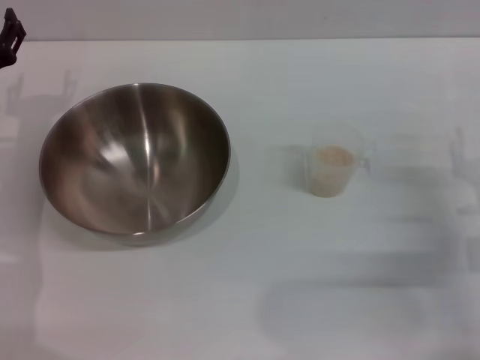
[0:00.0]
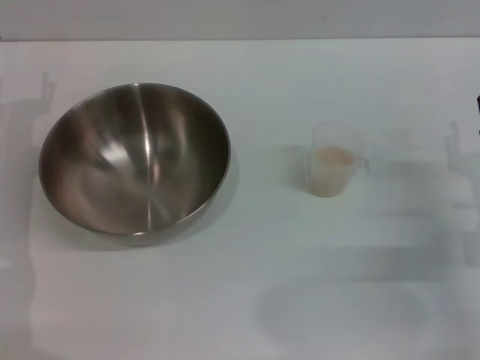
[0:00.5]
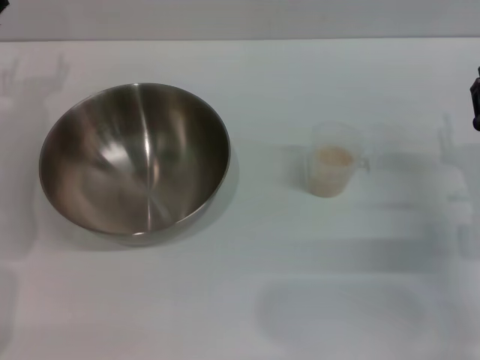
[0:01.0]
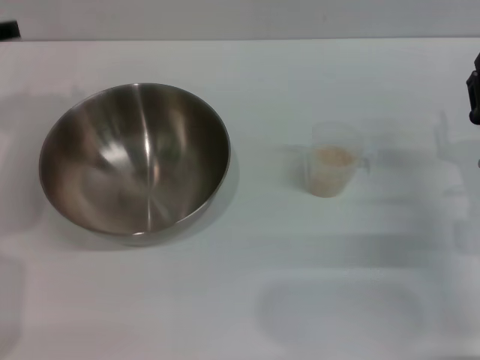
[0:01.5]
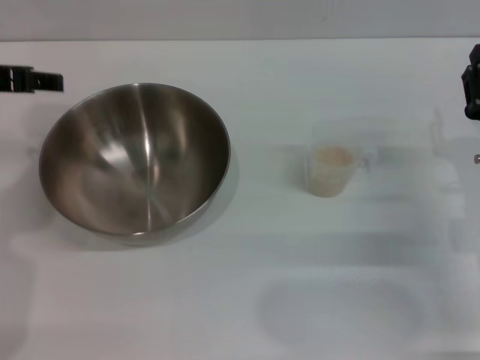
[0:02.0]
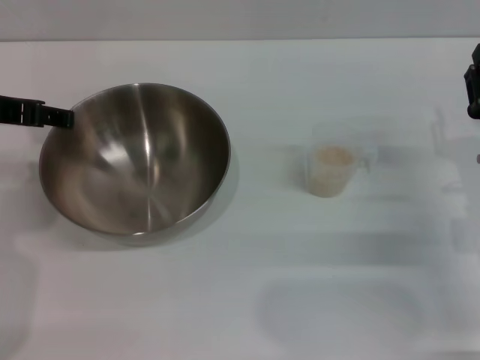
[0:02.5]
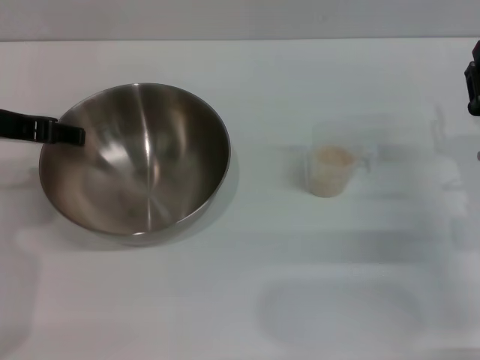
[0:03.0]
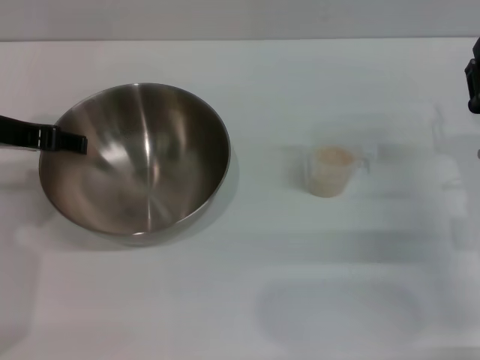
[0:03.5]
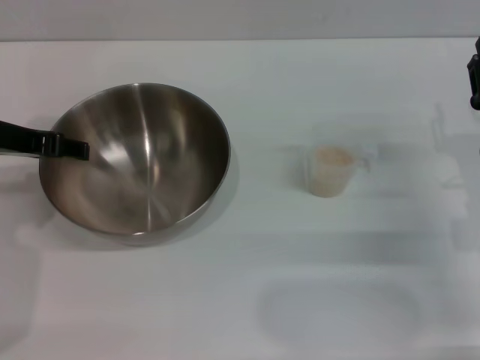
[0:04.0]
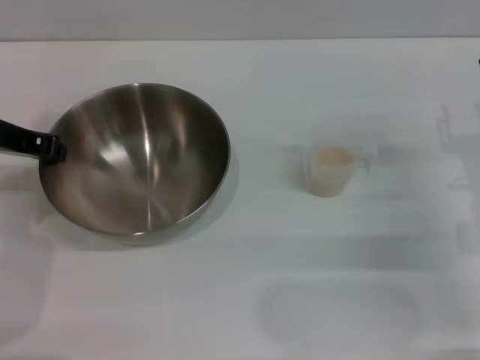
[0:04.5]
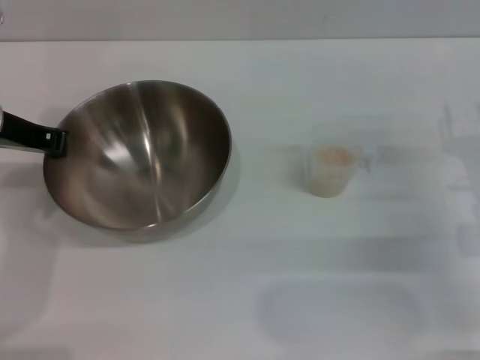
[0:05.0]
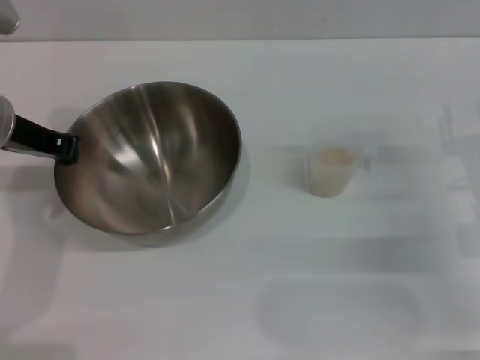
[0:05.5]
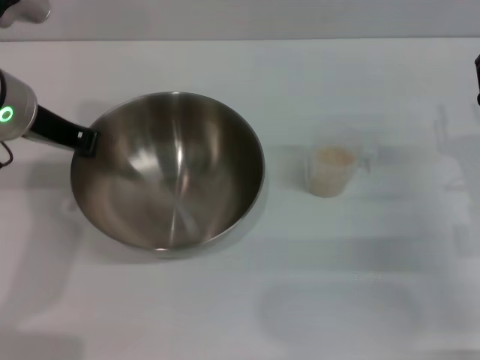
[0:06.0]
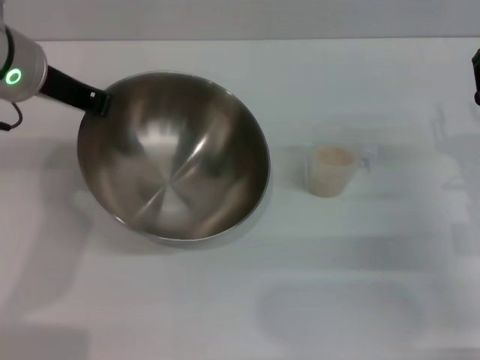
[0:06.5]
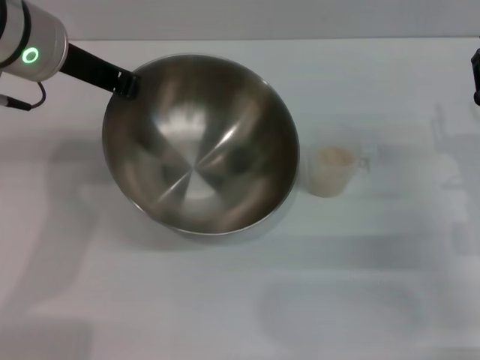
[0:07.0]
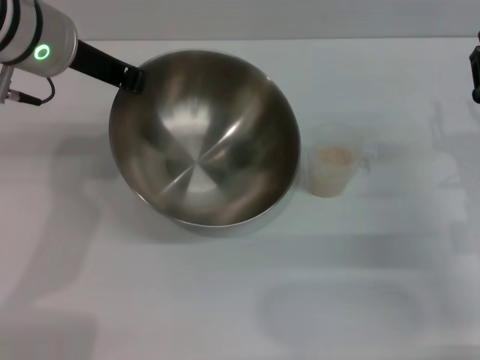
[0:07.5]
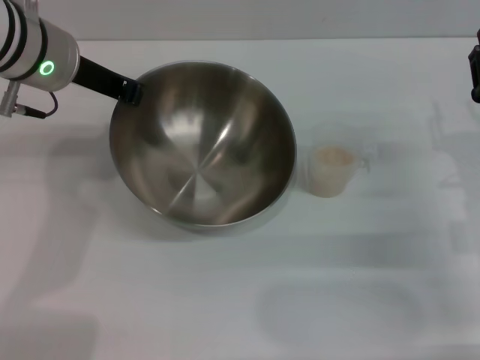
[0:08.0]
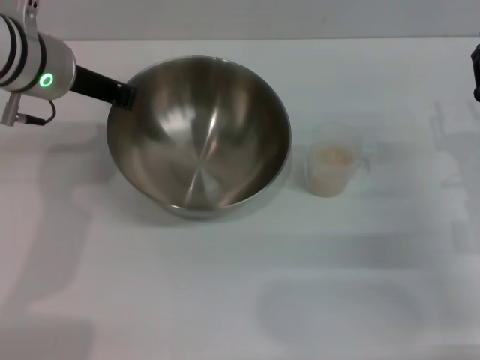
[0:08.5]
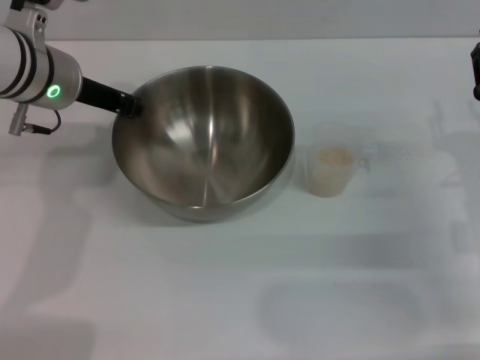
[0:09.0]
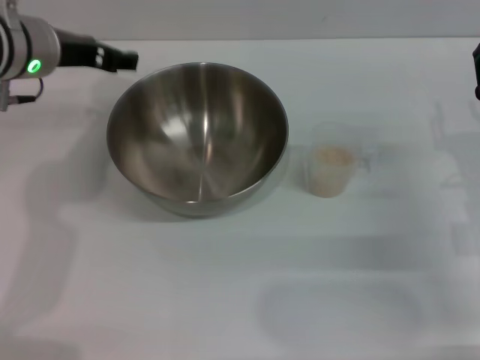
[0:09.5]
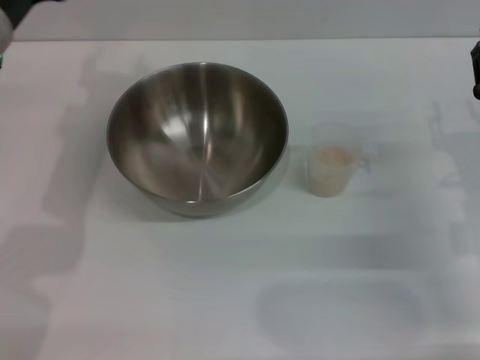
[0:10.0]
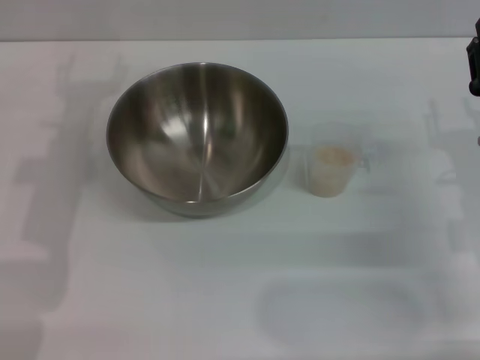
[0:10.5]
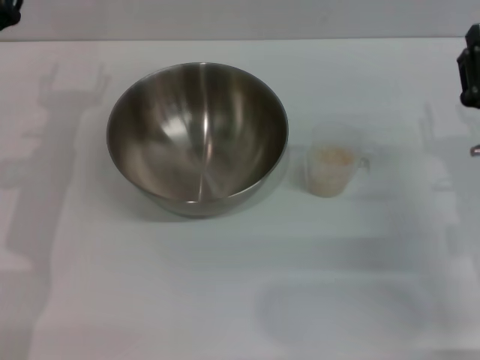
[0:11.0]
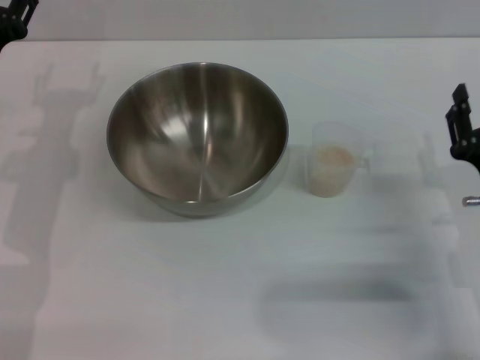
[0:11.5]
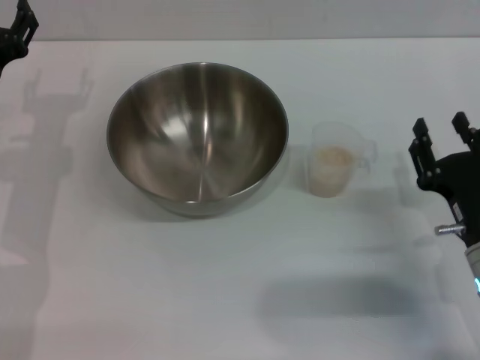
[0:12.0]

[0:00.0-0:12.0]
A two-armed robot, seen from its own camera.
Task of the whole recording: Place the bowl in the middle of the table with one hand and pour the rice from the grain cup into it with the other hand.
Step, 0:00.0 to 0:06.0: Pick up the bowl with the left gripper.
Step, 0:06.5 to 0:09.5: Place the bowl in the center of view with the left gripper.
0:00.0 to 0:02.0: The left gripper shifts roughly 15 cm upward.
0:02.0 to 0:04.0: The grippers make only small movements.
0:04.0 to 0:06.0: The left gripper shifts by roughly 5 cm, and closes up.
0:08.0 to 0:10.0: The left gripper changes place by approximately 5 cm, and opens.
0:10.0 to 0:12.0: The left gripper heads downward, covering approximately 10 cm. The right gripper moves backward, roughly 5 cm.

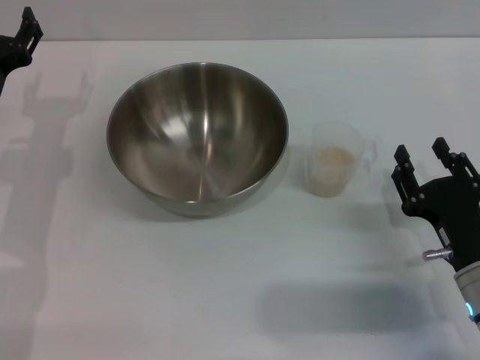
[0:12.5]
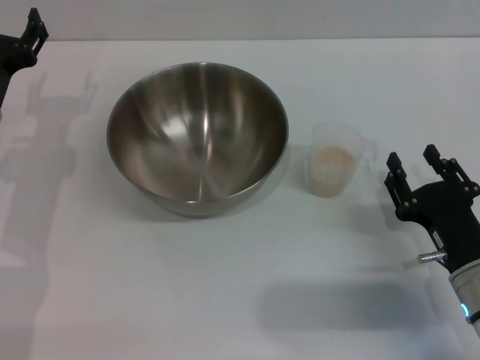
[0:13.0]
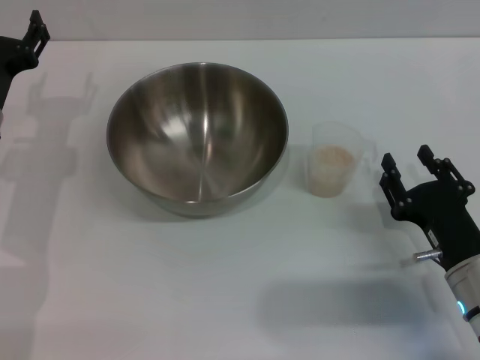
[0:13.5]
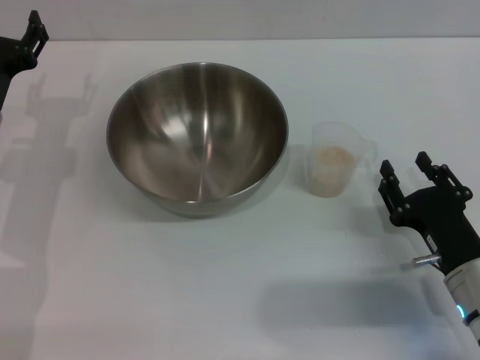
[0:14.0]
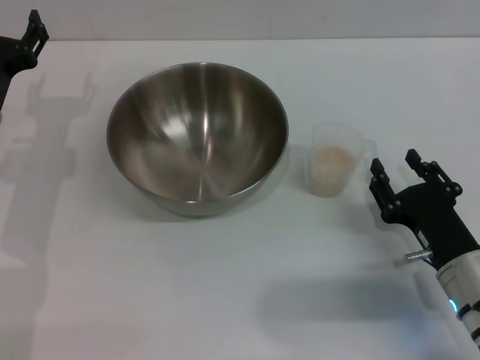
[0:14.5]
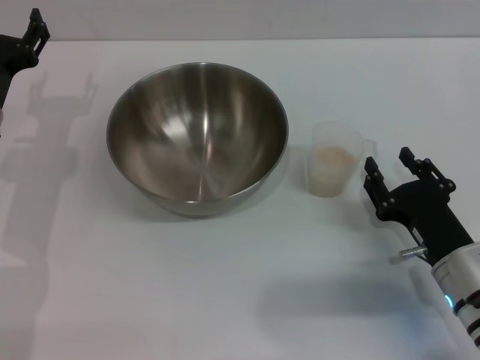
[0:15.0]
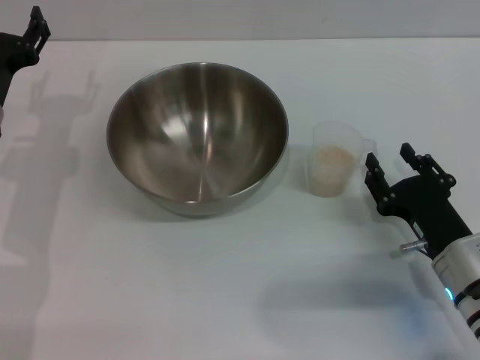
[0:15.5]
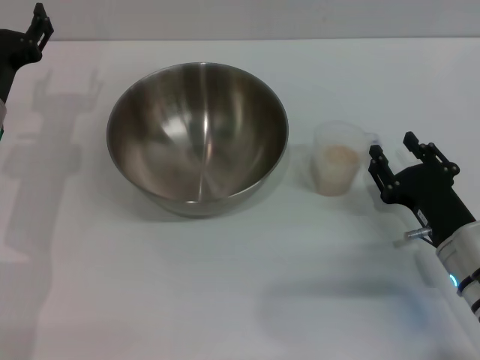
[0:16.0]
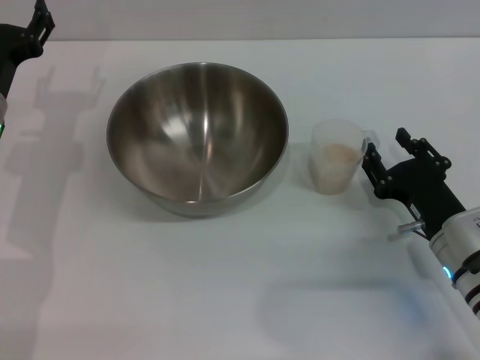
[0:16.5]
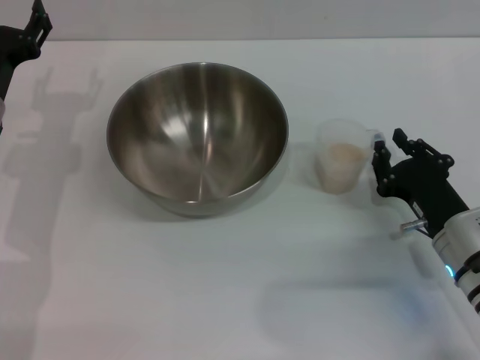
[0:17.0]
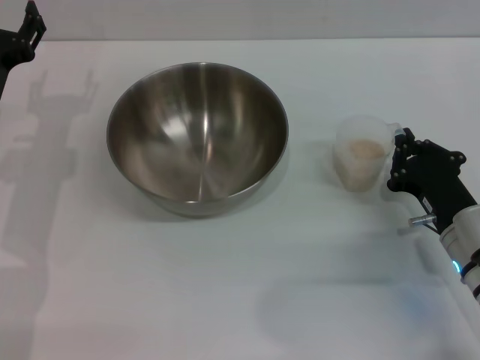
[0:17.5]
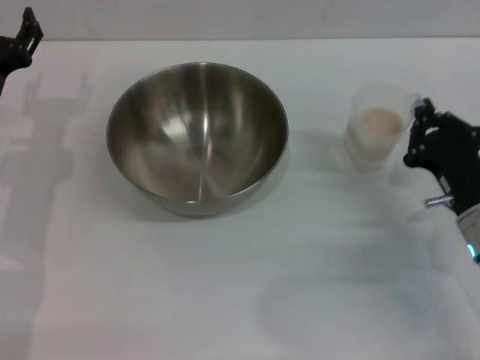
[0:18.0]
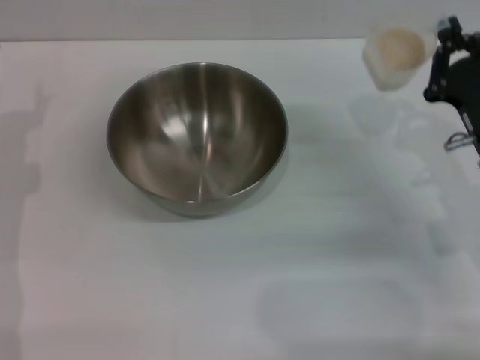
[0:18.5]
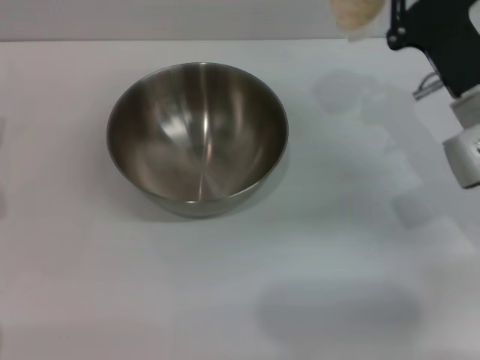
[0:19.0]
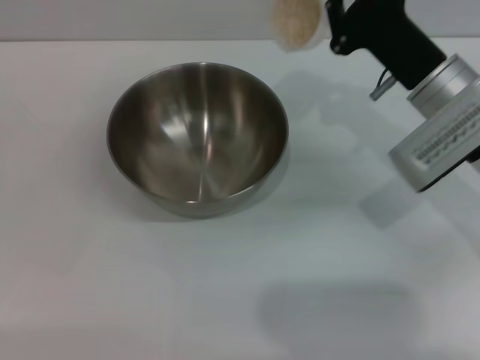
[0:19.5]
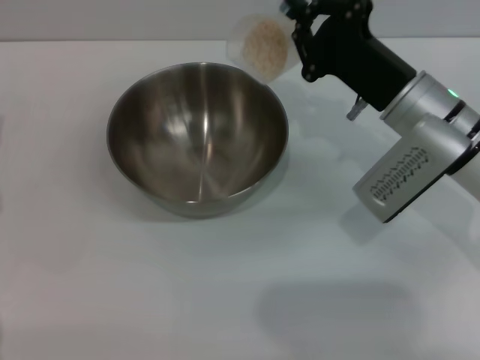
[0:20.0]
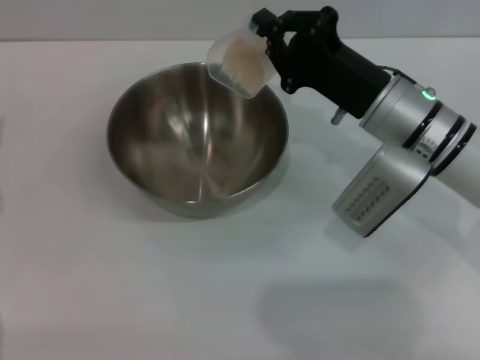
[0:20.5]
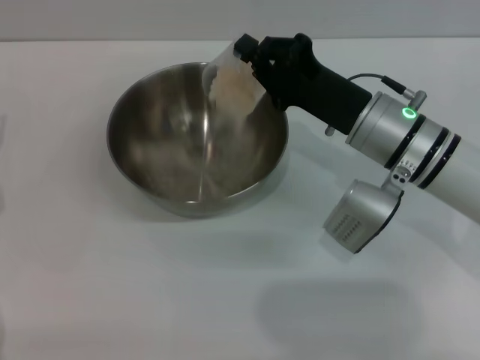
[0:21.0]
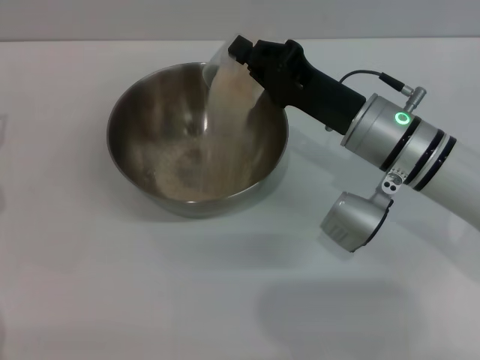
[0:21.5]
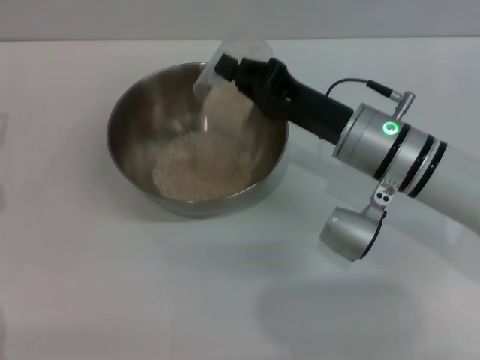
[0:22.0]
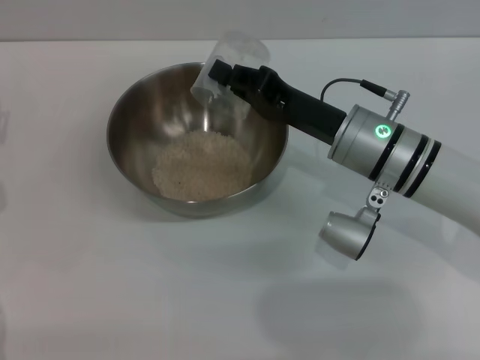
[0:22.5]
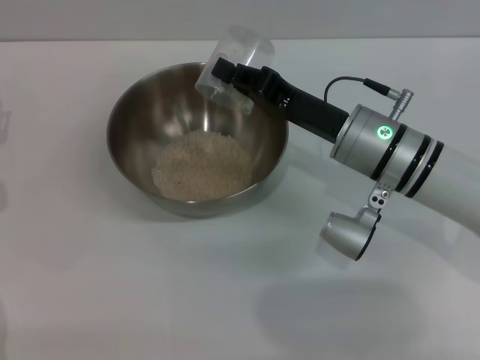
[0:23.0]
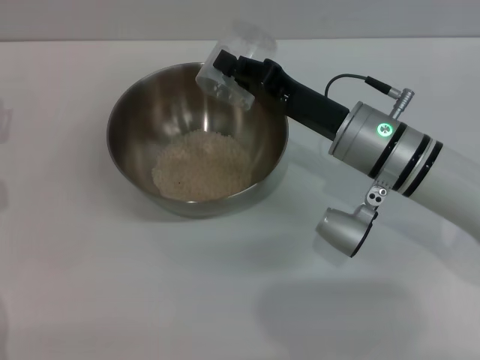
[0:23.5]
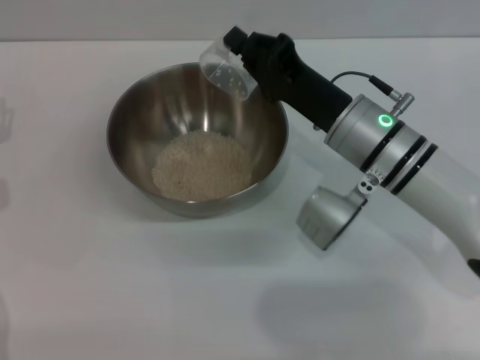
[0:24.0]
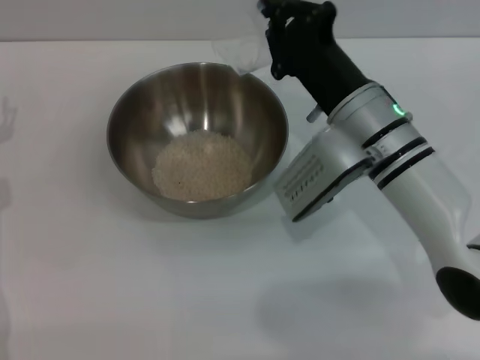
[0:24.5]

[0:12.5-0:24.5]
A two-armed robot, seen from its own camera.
Task of the whole recording: Place the bowl in the middle of the table with one hand and pour the rice from the grain cup into it with the other hand.
Step, 0:12.5 to 0:18.0: Pick up the cup with rice in it with the right gripper.
Step, 0:18.5 to 0:24.0: Pour the rice from the cup into the bowl with the right gripper.
0:12.5 to 0:16.5: The grippers stay close to where they were, moving slightly.
0:16.5 to 0:18.5: The right gripper is displaced upward by approximately 5 cm, and closes up. The left gripper shifts by roughly 5 cm.
0:18.5 to 0:20.5: The right gripper travels to the left and forward by approximately 10 cm.

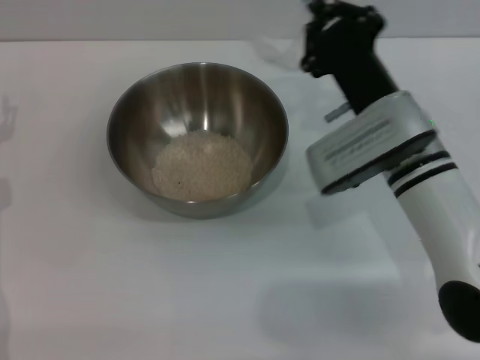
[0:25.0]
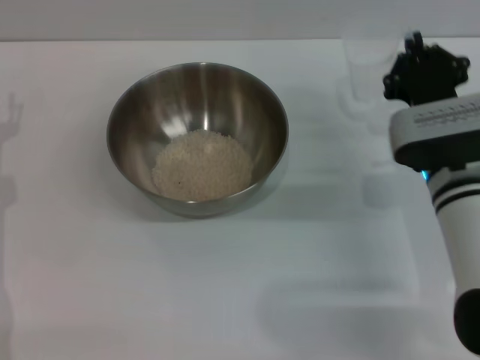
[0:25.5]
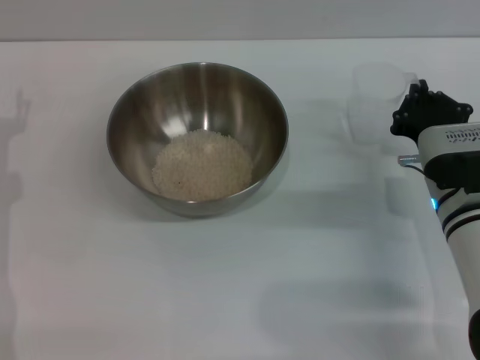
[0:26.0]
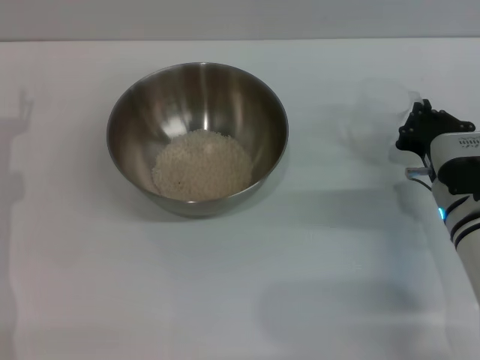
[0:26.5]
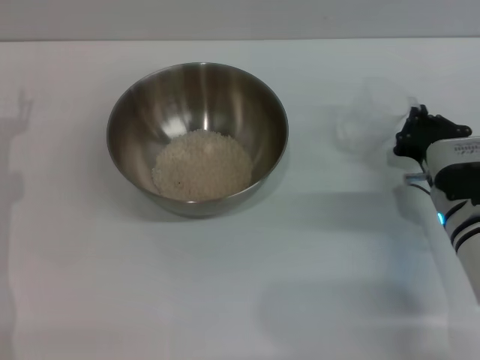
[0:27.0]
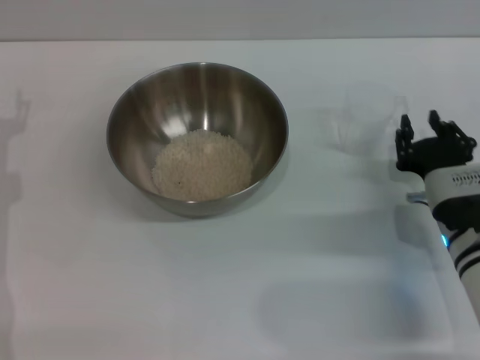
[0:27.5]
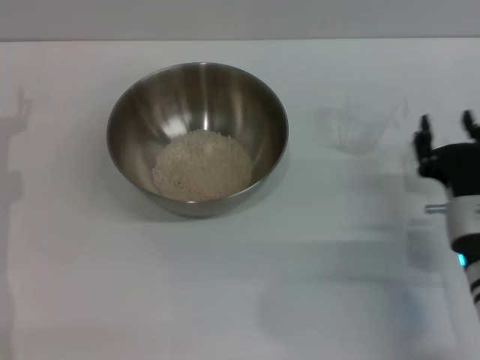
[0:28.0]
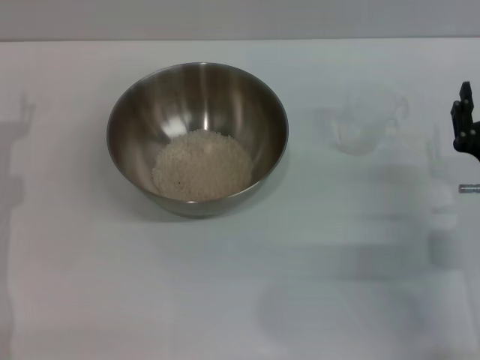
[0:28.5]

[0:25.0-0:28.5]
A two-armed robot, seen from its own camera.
Task of the whole recording: Place the bowl in the middle of the table with one hand and pour the rice from the grain cup into it with the other hand.
Step, 0:25.0 to 0:27.5: Place the cup on the table with the right gripper.
0:25.0 to 0:27.0: The right gripper travels to the right and downward by roughly 10 cm.
0:27.0 to 0:28.5: The right gripper travels backward by about 5 cm, and opens.
